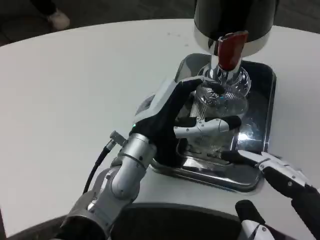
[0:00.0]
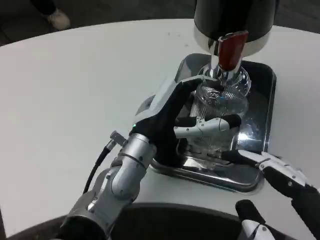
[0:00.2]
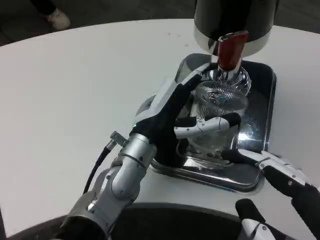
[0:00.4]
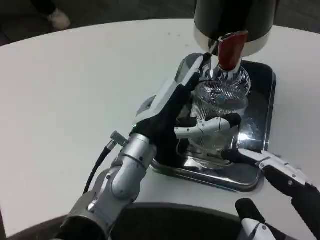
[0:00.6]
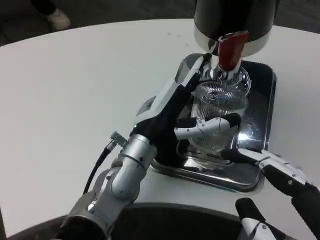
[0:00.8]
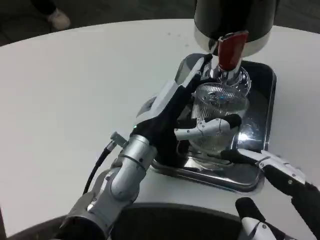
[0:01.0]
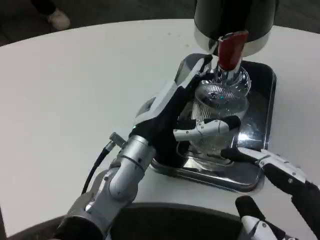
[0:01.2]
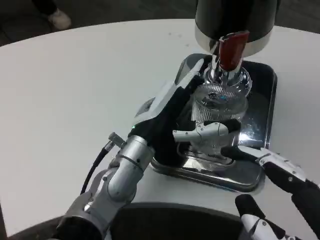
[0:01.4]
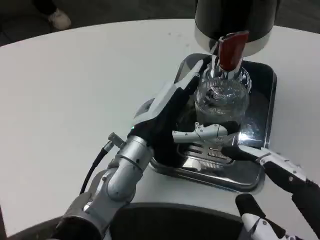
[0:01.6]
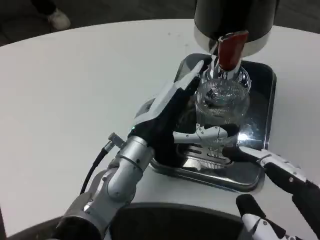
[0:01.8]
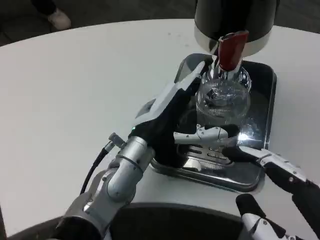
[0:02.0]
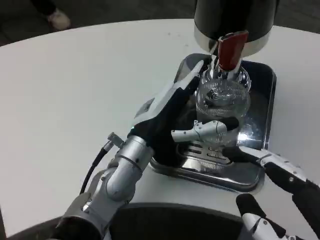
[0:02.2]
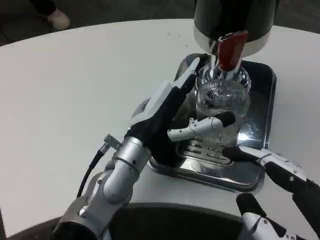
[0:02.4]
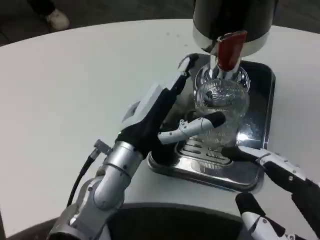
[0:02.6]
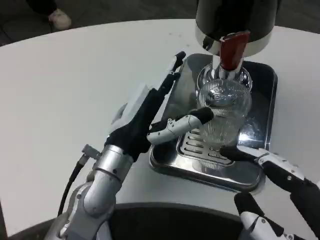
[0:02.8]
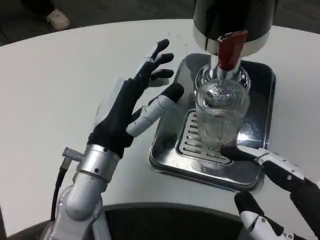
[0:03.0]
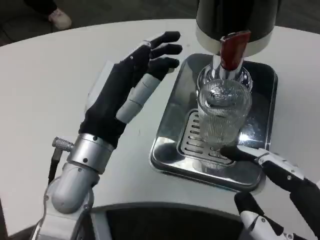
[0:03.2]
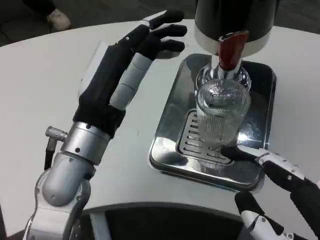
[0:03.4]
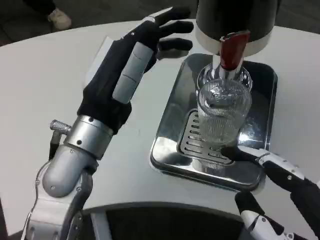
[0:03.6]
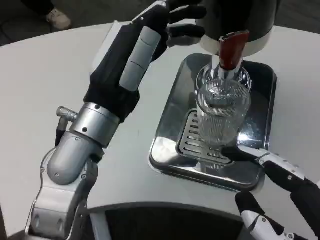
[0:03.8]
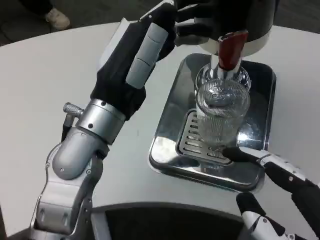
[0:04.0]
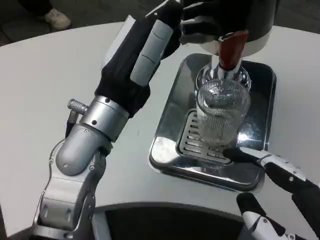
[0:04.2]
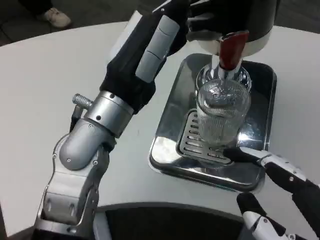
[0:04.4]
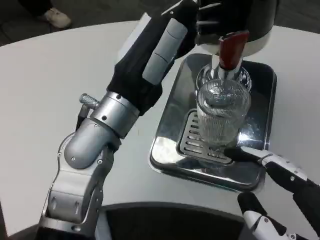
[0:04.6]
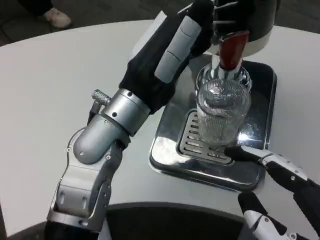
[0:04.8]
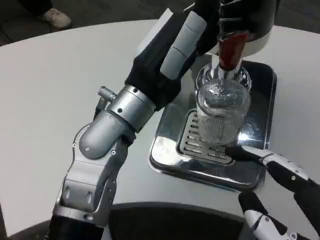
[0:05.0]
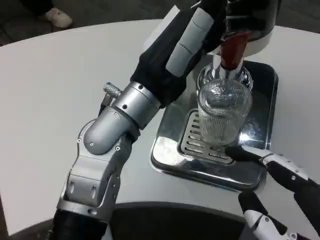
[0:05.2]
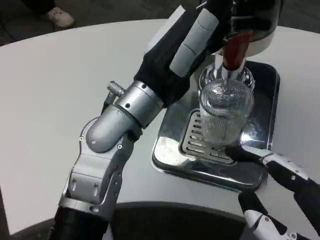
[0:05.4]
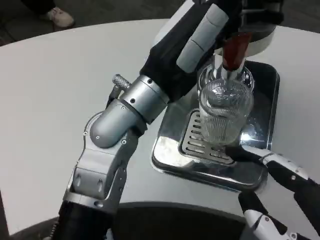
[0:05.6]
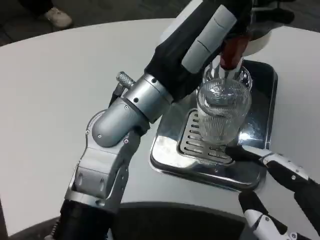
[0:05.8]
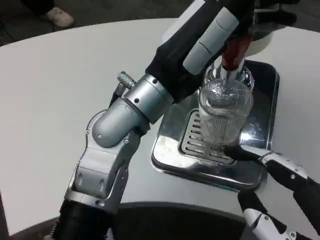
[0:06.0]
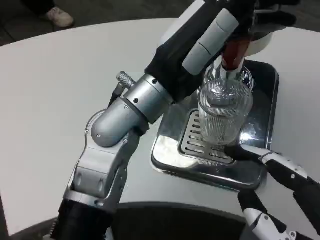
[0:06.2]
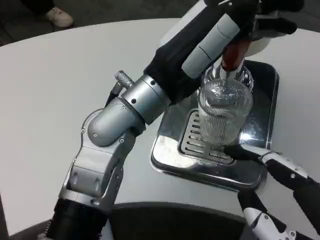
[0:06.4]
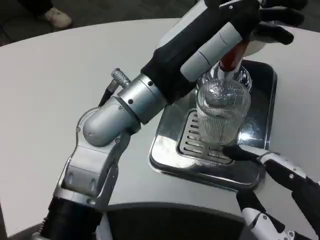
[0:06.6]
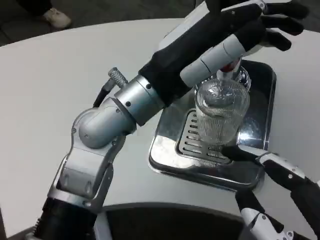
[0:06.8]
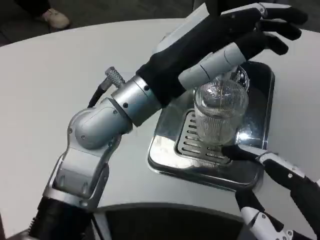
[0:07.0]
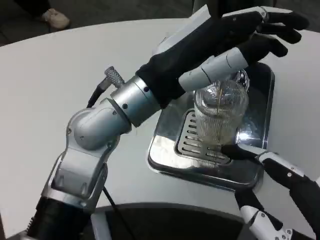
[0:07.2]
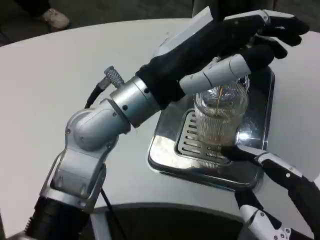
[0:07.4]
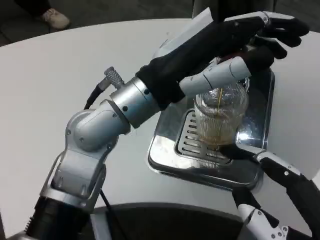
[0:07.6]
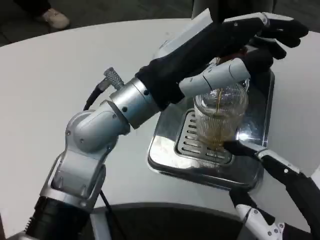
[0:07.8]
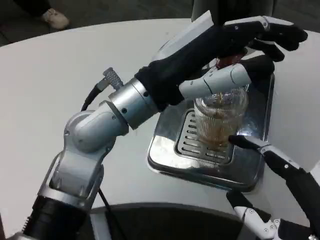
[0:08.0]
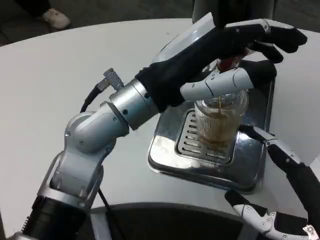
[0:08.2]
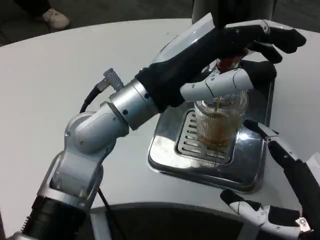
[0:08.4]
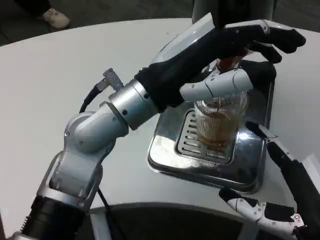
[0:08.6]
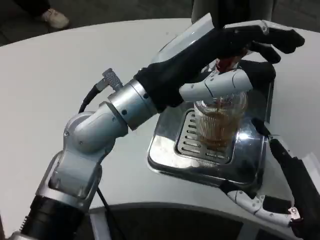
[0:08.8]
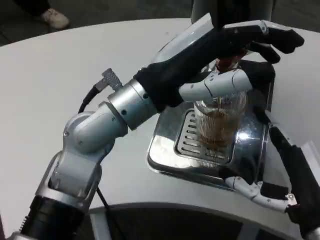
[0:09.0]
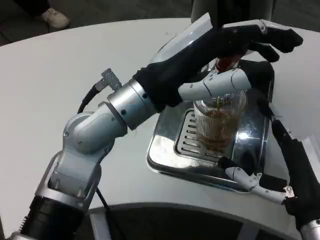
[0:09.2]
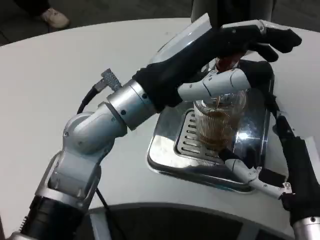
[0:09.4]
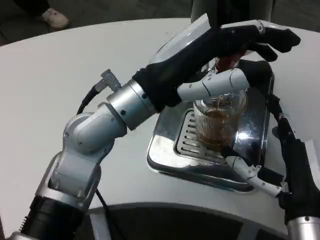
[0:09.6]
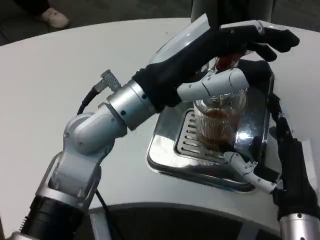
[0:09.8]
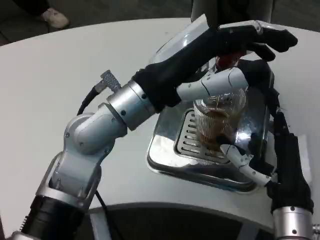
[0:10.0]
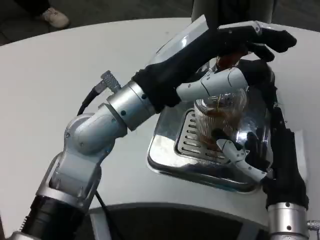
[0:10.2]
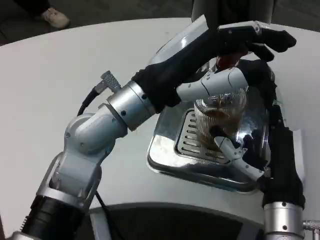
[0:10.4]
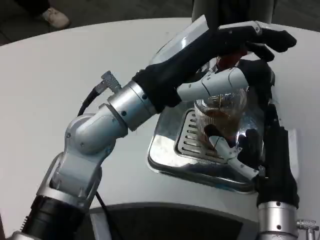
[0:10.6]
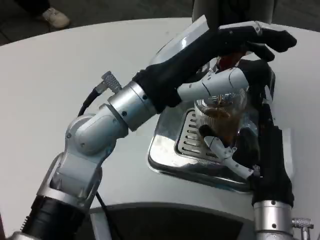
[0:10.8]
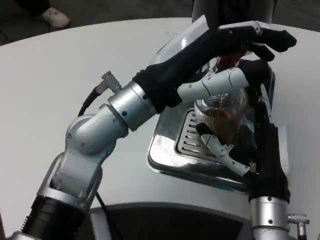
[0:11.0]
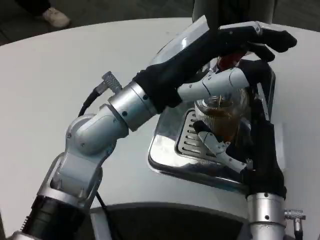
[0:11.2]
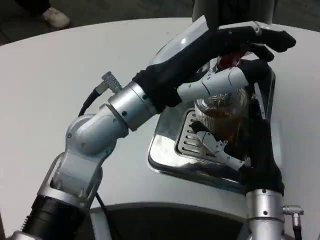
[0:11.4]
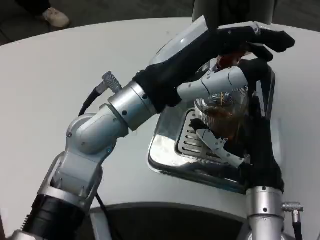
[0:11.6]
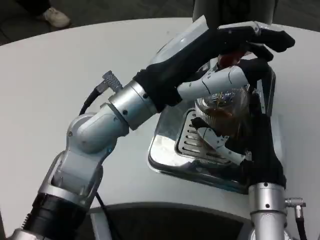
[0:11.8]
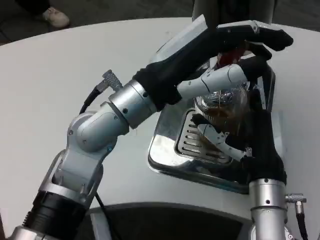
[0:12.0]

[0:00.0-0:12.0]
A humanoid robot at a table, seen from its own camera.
Task of the whole recording: Grasp the cup under the faucet to collect the drink, then remove the cup.
0:00.0 to 0:01.6: Neither hand changes place.
0:01.6 to 0:03.0: The left hand ends up approximately 5 cm from where it was.
0:03.0 to 0:04.4: The left hand goes about 10 cm upward.
0:07.6 to 0:09.0: The right hand moves forward, some 10 cm.
0:09.0 to 0:10.4: The right hand moves forward and to the left, about 10 cm.
0:10.4 to 0:12.0: The hands make only small movements.

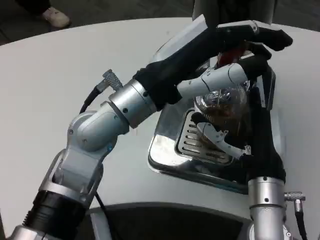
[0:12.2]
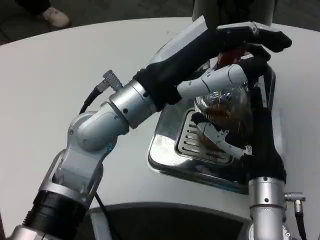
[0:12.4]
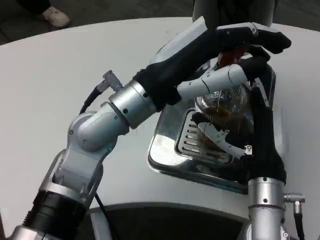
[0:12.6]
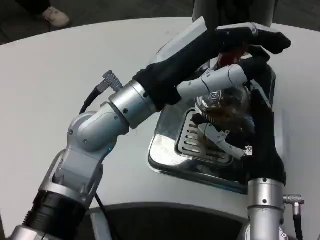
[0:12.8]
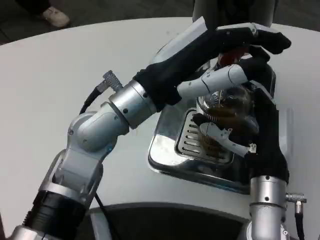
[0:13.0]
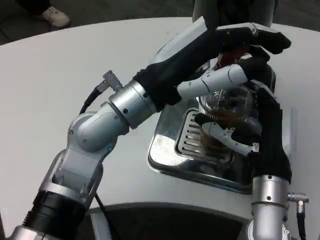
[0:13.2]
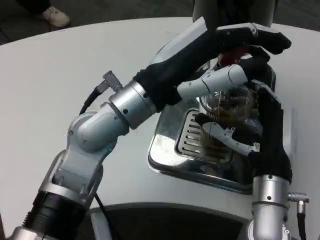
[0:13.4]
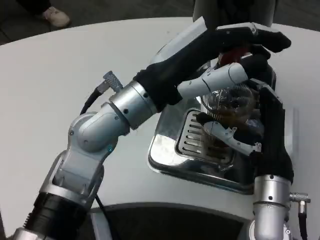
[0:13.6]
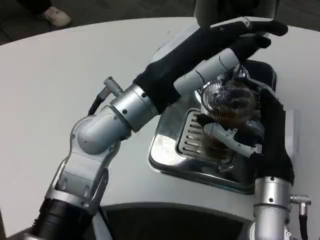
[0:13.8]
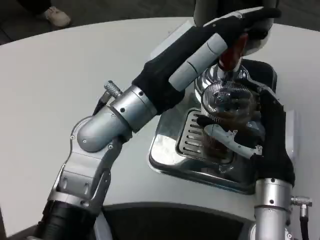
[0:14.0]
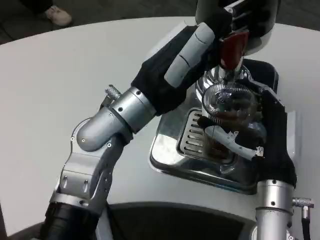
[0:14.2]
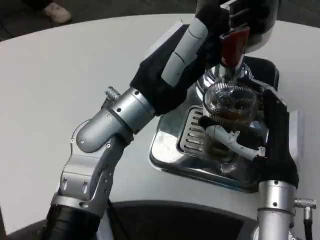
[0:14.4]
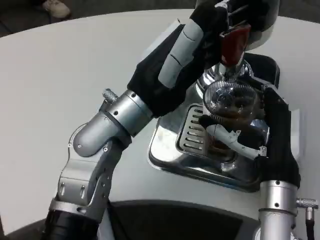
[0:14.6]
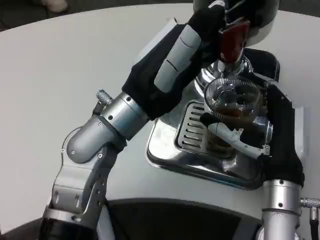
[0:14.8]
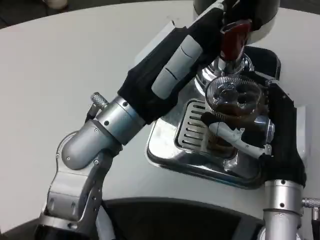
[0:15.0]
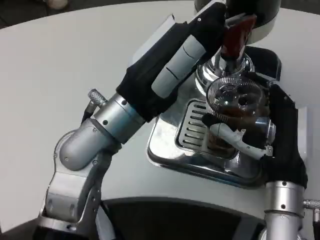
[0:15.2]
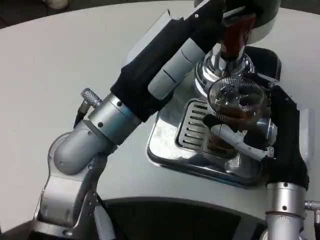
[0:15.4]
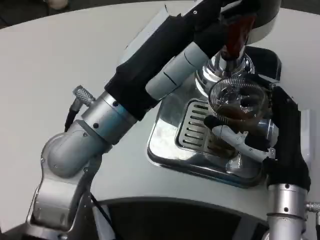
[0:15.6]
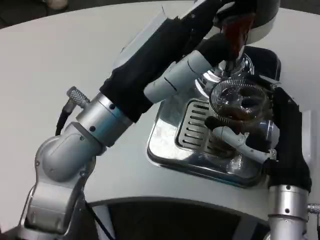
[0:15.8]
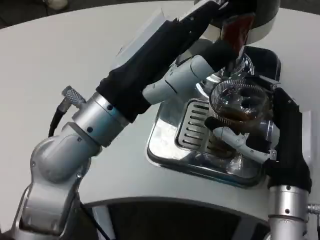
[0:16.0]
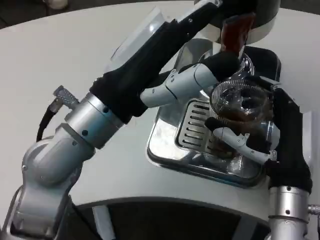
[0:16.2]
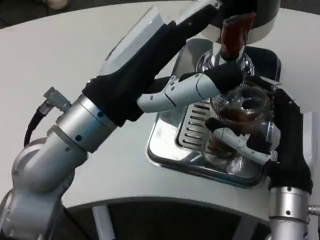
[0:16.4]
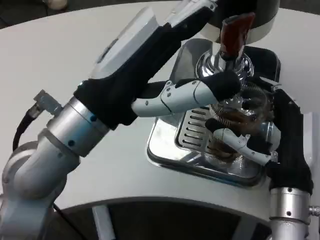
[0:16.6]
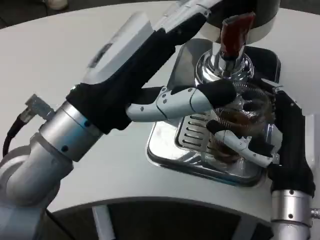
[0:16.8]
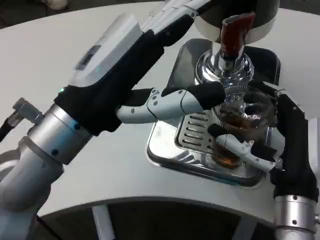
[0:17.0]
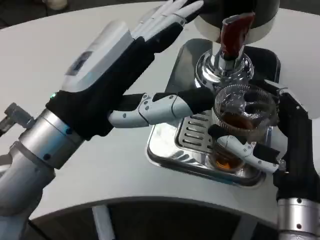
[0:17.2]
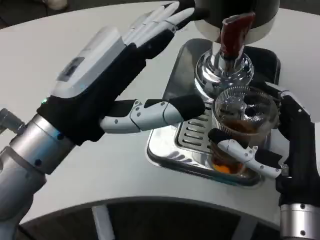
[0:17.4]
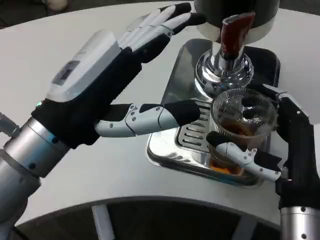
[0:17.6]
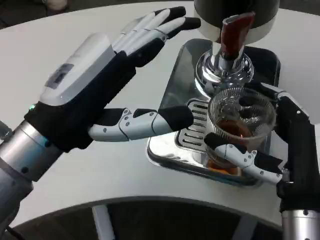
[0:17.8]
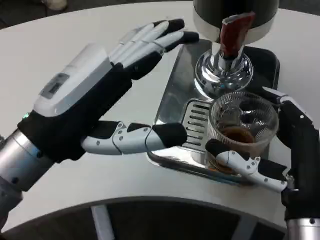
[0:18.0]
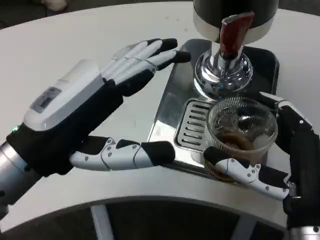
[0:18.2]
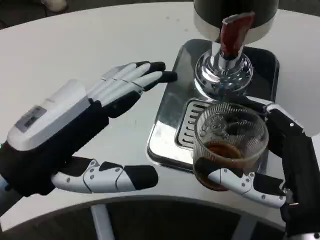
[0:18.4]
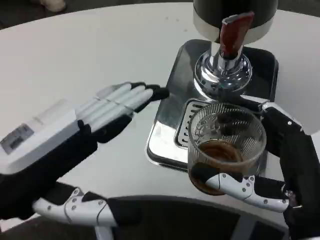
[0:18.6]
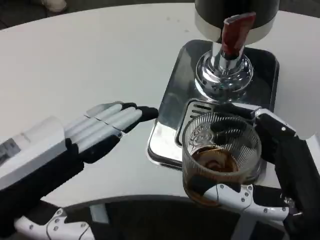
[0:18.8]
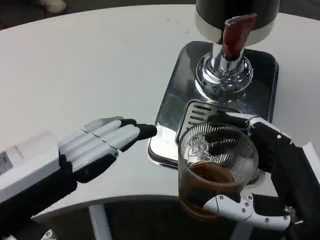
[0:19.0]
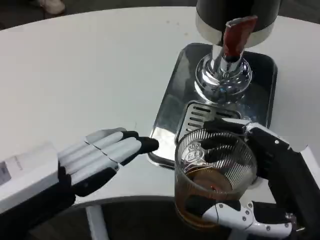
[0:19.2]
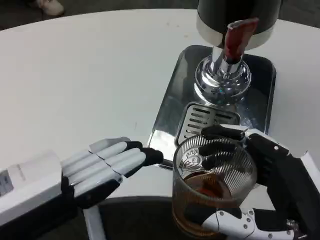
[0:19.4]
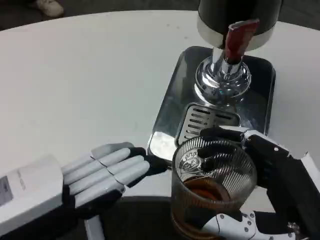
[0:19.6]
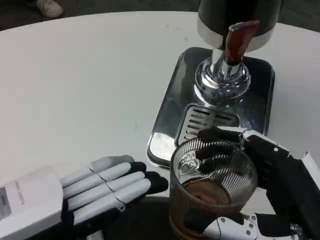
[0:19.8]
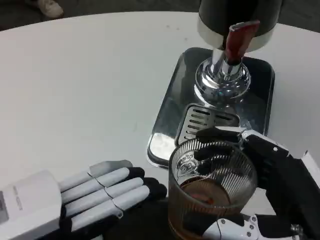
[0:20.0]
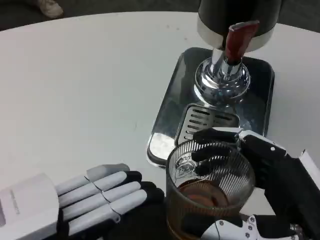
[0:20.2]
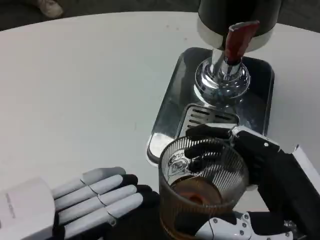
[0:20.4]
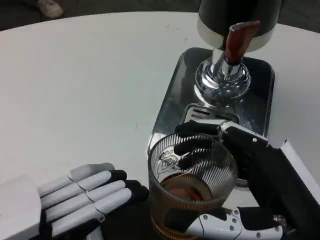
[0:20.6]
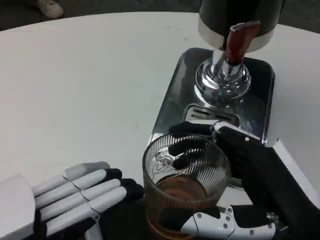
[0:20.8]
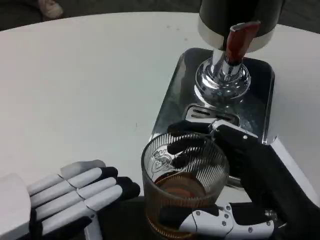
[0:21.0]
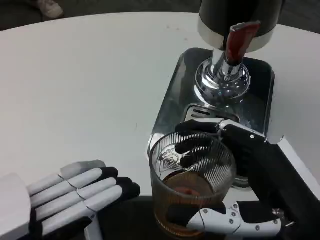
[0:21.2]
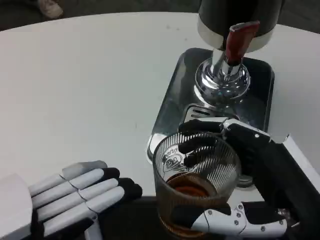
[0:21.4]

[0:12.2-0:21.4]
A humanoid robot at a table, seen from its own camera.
Task of the whole recording: Grasp the cup under the faucet to collect the drink, then remove the cup.
0:15.2 to 0:16.8: The left hand moves backward, some 5 cm.
0:16.8 to 0:18.4: The left hand is displaced to the left by roughly 10 cm, while the right hand moves backward, about 10 cm.
0:18.4 to 0:19.8: Both hands travel together backward, some 5 cm.

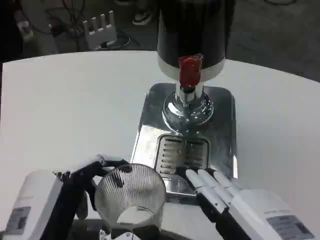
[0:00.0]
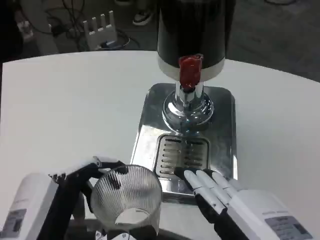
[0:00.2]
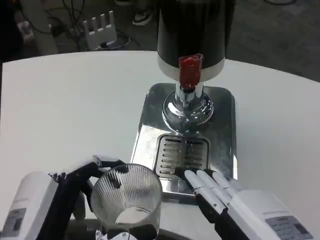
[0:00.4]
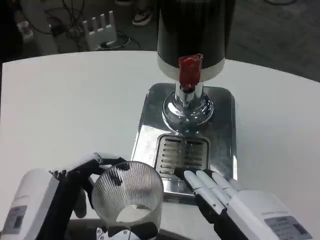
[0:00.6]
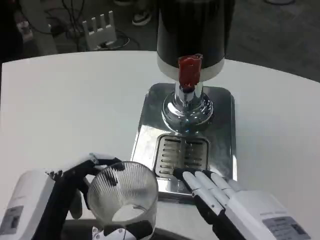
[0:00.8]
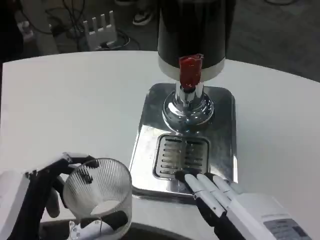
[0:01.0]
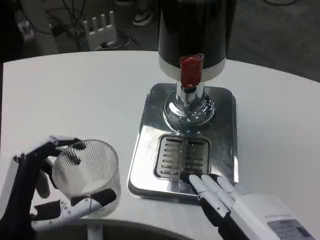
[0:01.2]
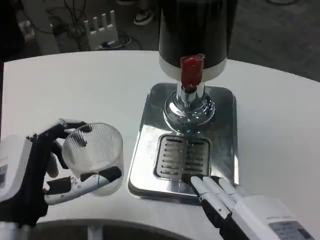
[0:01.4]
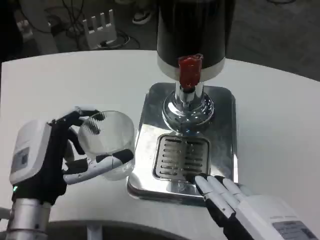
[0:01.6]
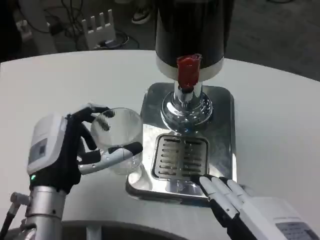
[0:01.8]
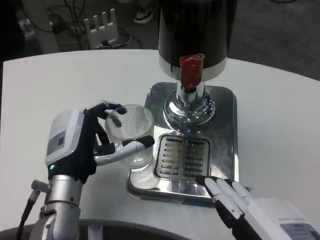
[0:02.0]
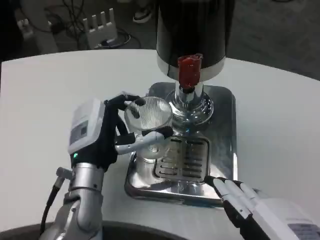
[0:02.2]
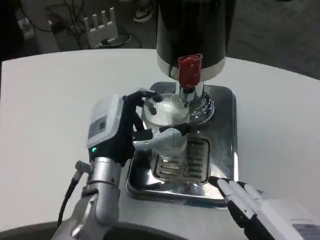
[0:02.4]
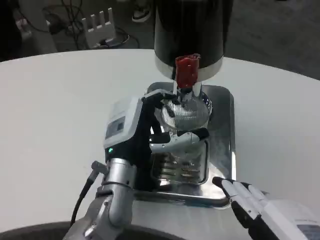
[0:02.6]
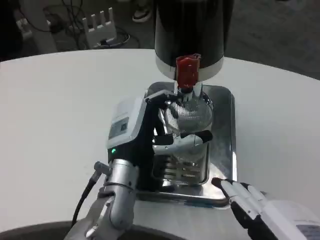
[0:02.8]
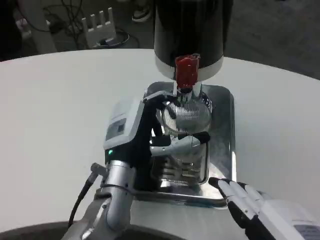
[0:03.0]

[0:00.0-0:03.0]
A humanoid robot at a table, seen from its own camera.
Task of the whole recording: Grasp the cup under the faucet to collect the drink, then remove the cup.
0:00.0 to 0:01.6: The left hand heads forward, covering roughly 10 cm.
0:01.6 to 0:03.0: The left hand goes approximately 10 cm to the right and forward.
